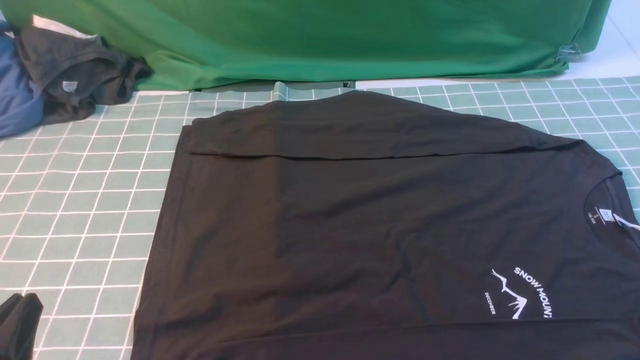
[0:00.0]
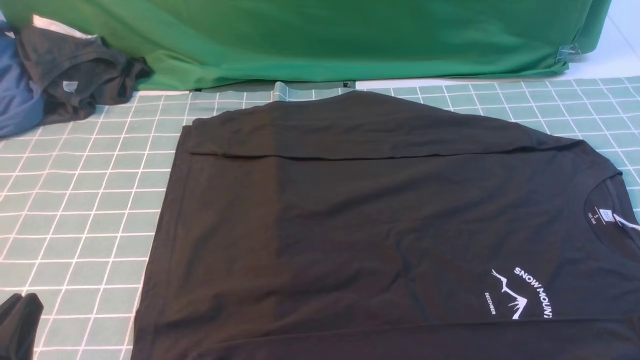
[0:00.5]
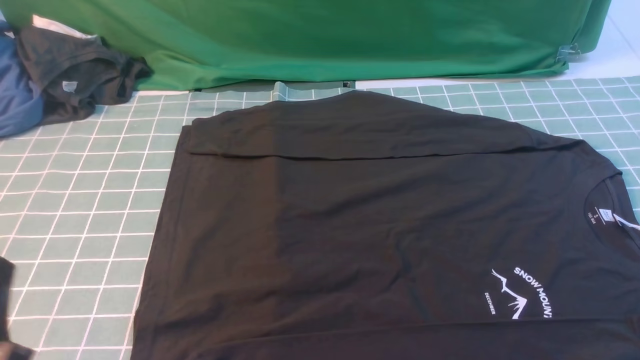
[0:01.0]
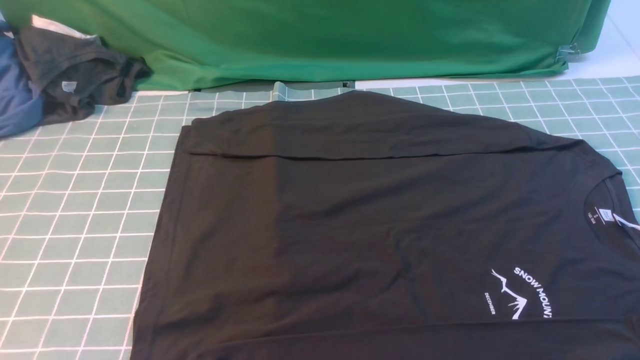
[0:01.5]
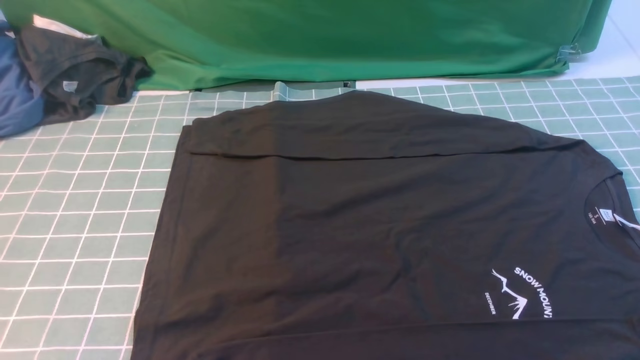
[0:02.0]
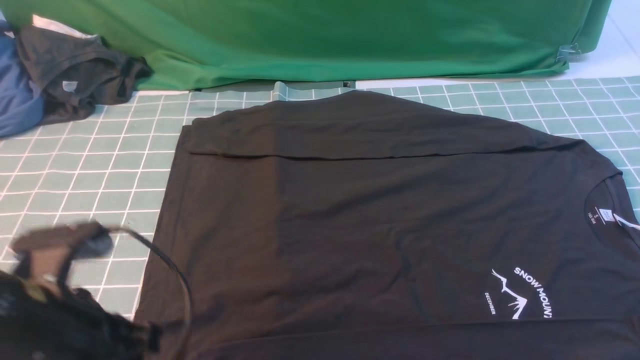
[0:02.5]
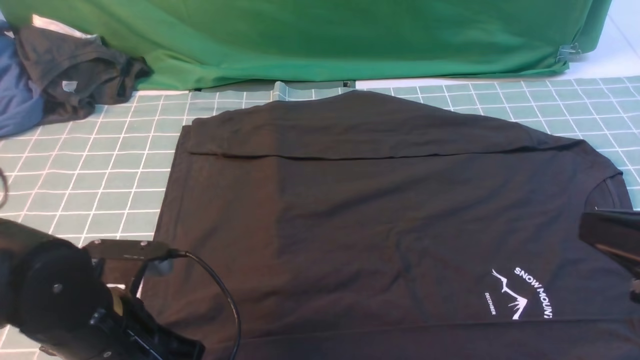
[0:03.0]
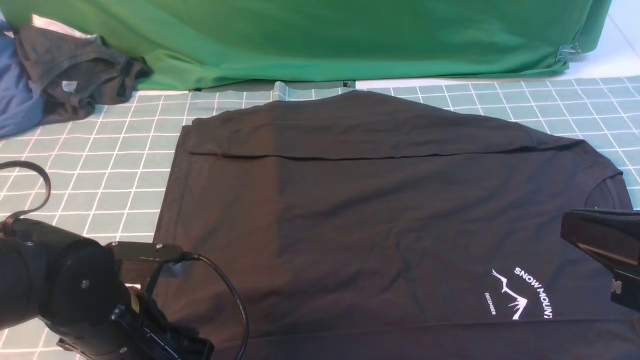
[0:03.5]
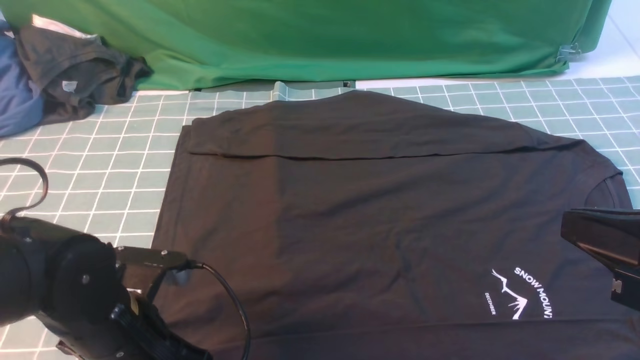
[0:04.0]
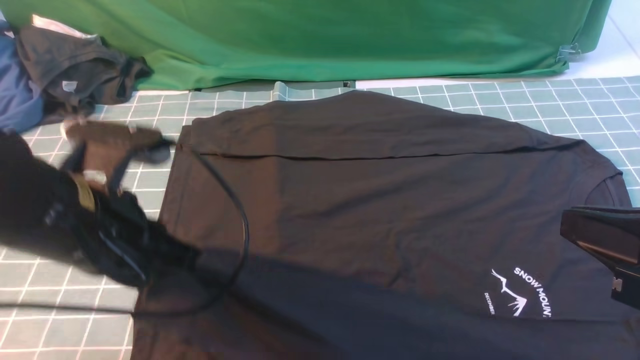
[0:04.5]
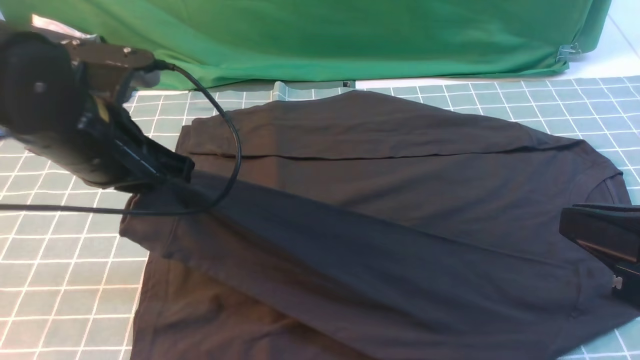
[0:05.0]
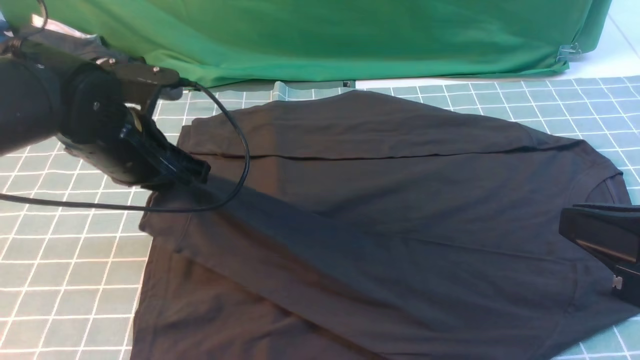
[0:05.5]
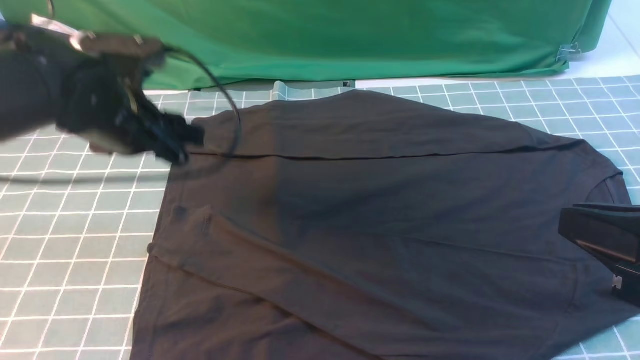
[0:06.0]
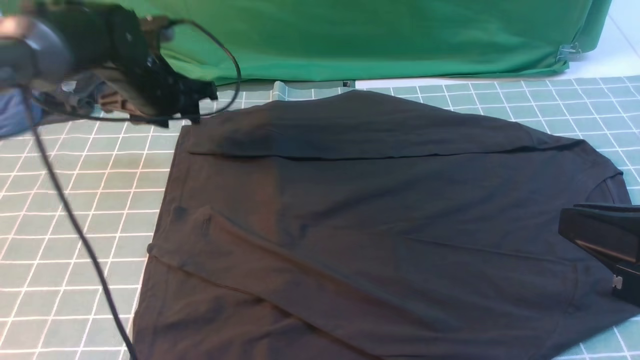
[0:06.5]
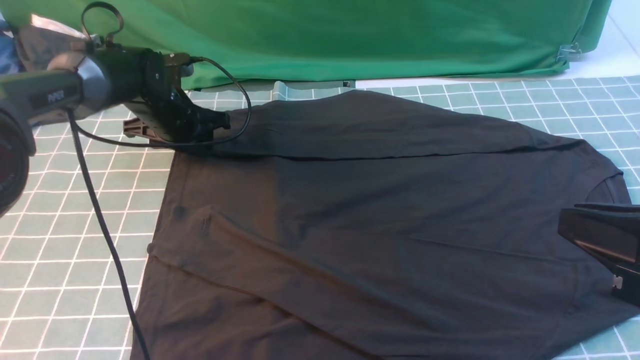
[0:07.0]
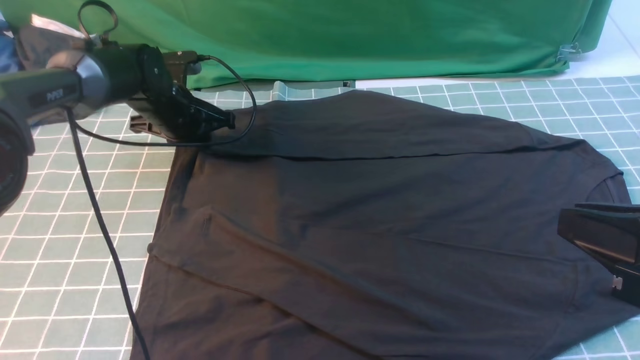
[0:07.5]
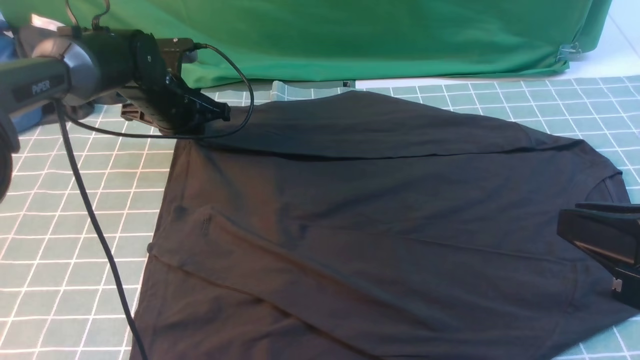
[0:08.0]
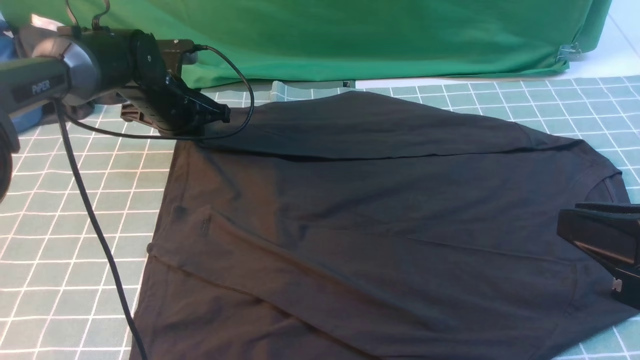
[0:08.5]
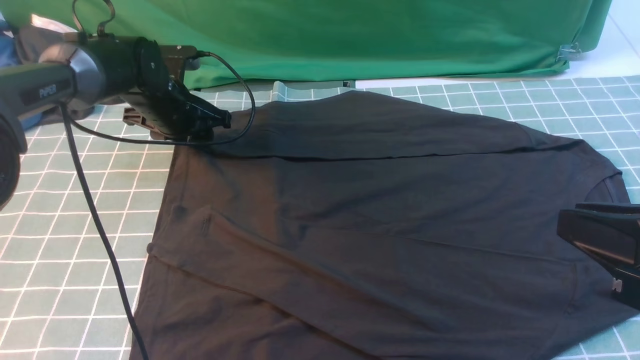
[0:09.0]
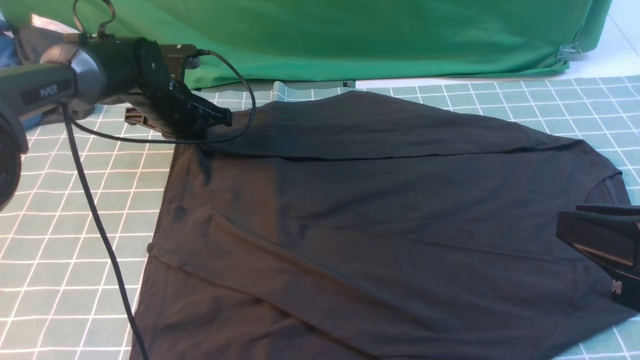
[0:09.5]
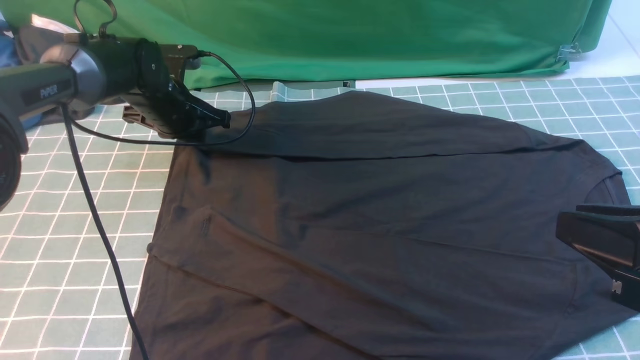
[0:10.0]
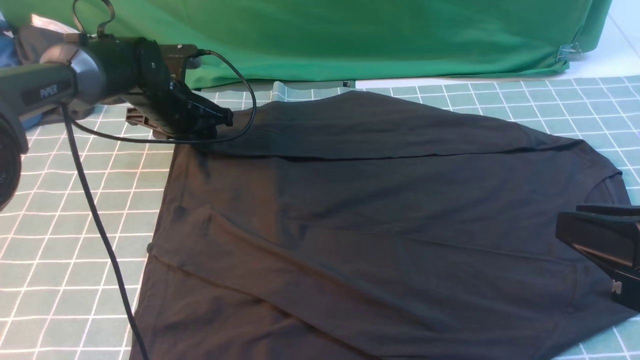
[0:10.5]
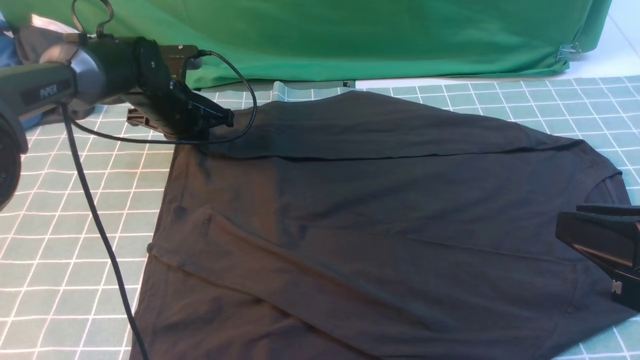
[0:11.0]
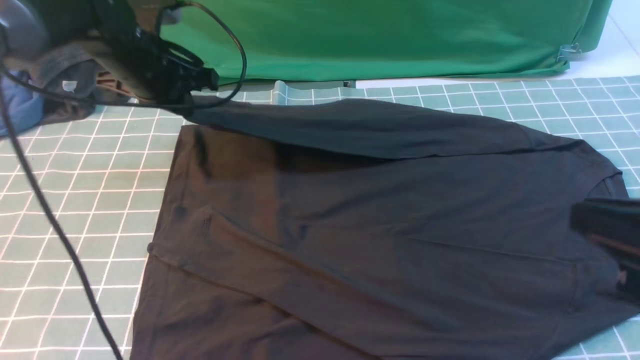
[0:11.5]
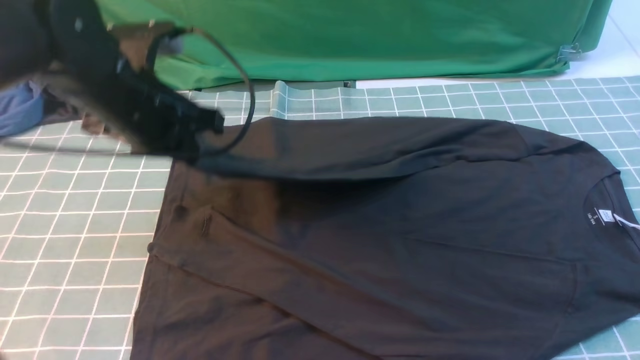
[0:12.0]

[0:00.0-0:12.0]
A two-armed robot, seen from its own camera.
Step, 0:00.0 to 0:04.0: use the left arm to clamp the cuff closest to it.
Step, 0:04.5 to 0:05.5: use the left arm to drag and place the cuff at the centered position on the left edge of the fabric.
Step, 0:06.0 to 0:11.0: use the left arm to clamp the cuff farthest from it.
0:00.0 to 0:02.0: The left gripper shifts about 15 cm upward.
0:02.0 to 0:04.0: The right gripper is displaced to the left, upward and forward by roughly 15 cm, and closes up. Meanwhile the left gripper goes approximately 20 cm downward and forward, and opens, then closes again.
0:04.0 to 0:06.0: The left gripper is displaced forward and upward by roughly 20 cm, and opens its fingers.
0:06.0 to 0:08.0: The left gripper heads forward and downward, covering some 15 cm, and closes up.
0:08.0 to 0:10.0: The two grippers keep their place.
0:10.0 to 0:12.0: The left gripper is displaced backward and upward by about 20 cm, and opens, then closes again. The right gripper changes place by approximately 5 cm.

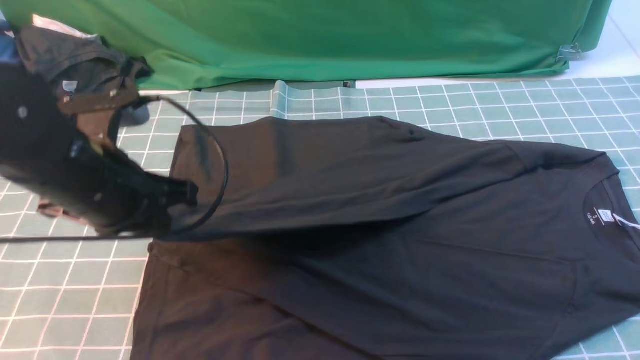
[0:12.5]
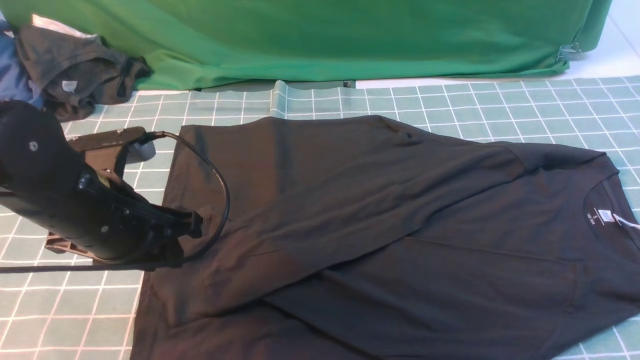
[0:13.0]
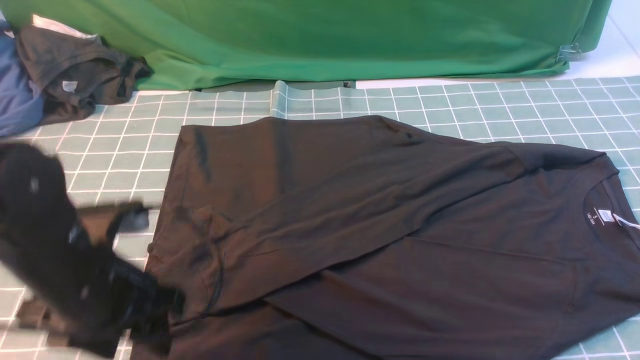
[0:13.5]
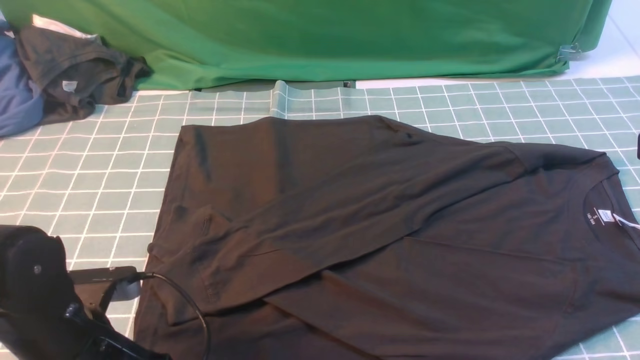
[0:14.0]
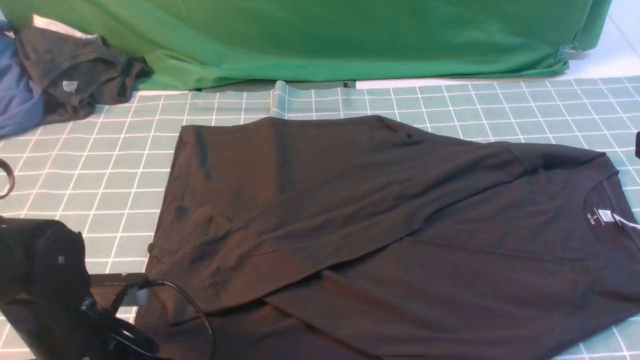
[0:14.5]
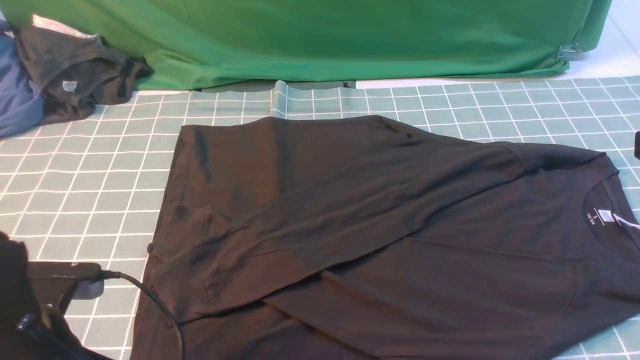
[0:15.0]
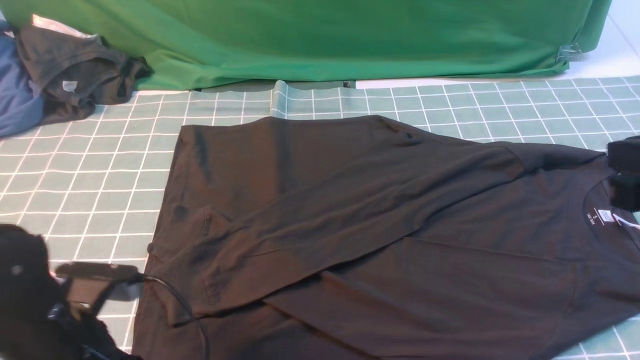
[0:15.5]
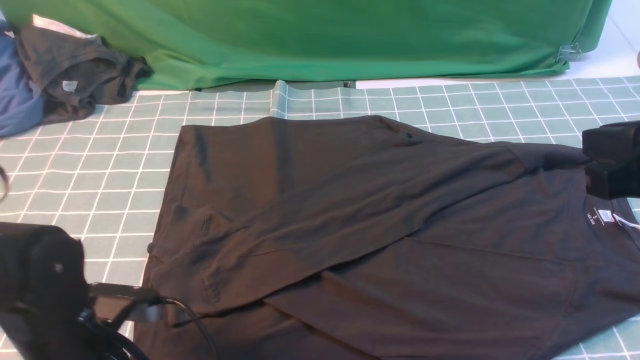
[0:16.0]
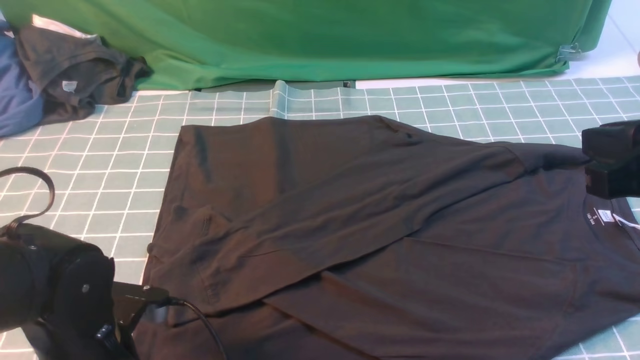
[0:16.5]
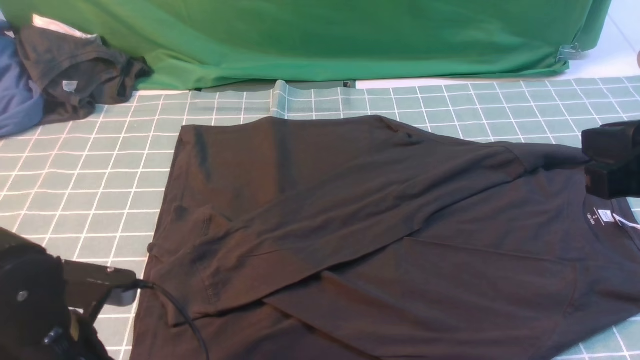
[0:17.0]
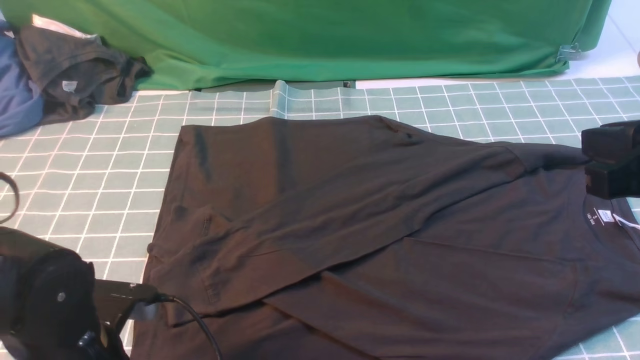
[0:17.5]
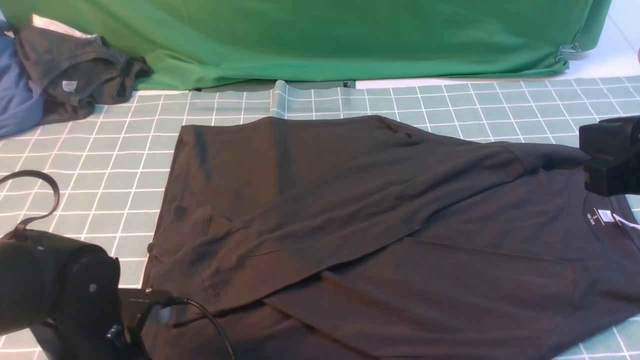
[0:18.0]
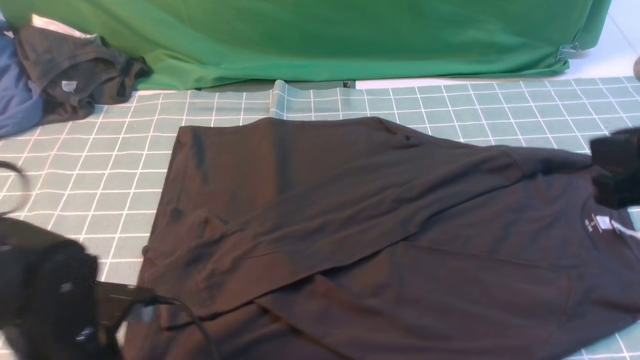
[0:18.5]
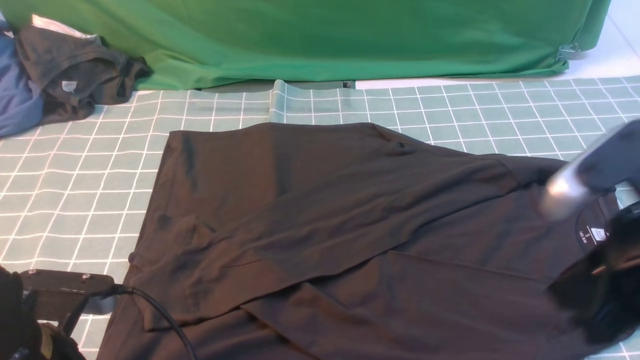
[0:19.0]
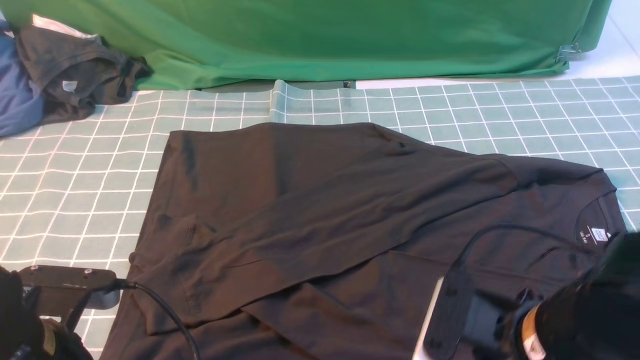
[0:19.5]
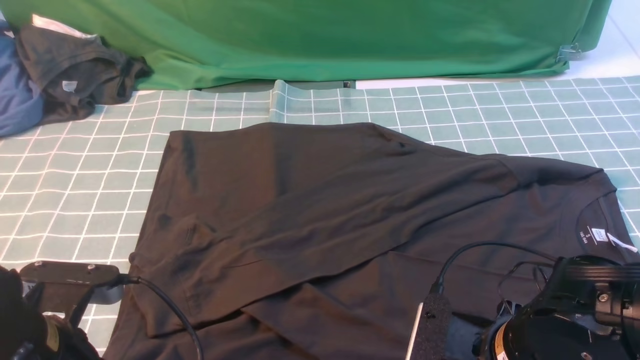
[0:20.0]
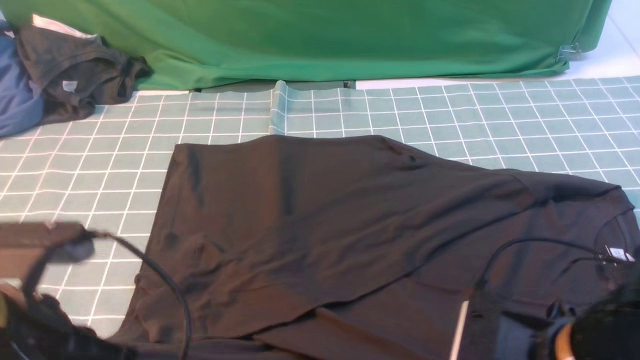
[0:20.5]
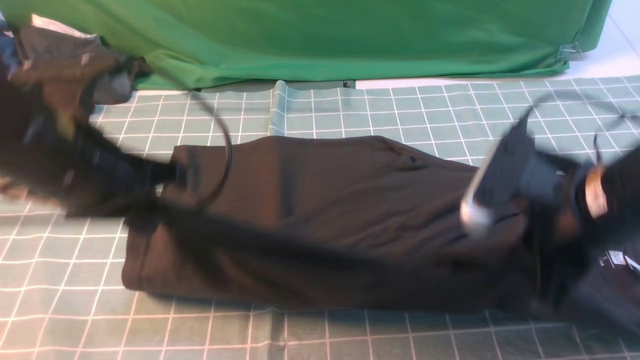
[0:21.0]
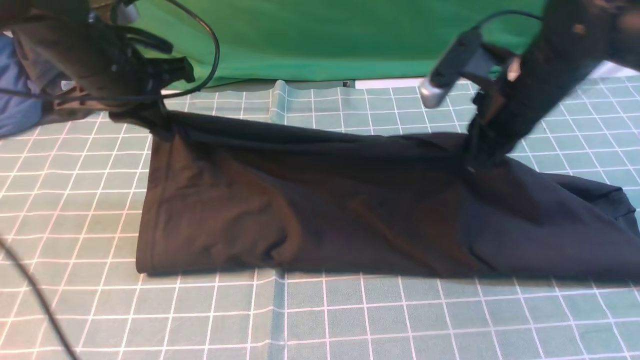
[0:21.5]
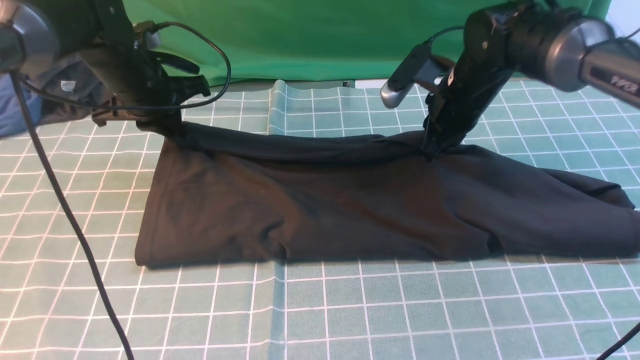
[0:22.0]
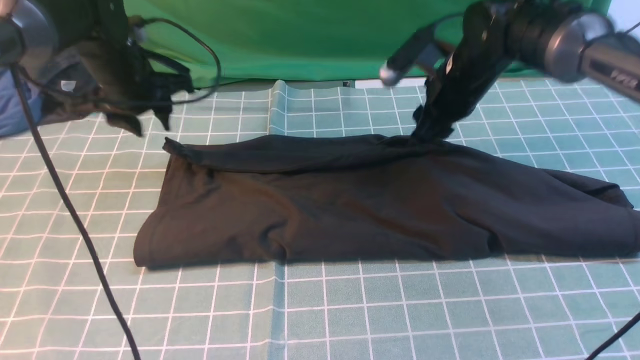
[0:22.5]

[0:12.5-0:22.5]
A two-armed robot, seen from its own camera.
Step, 0:13.5 to 0:20.5: use both arms simultaneously to clamp the lower edge of the clothing fabric.
0:12.5 to 0:14.5: The left gripper shifts roughly 15 cm downward and backward, and opens and closes again.
0:14.5 to 0:16.5: The left gripper opens, then closes again.
0:16.5 to 0:18.5: The left gripper opens, then closes again.
0:18.5 to 0:20.5: The left gripper is displaced upward by roughly 10 cm; the right gripper heads downward and to the left, covering roughly 15 cm, and opens, then closes once more.
0:20.5 to 0:22.5: Both grippers travel together forward, roughly 30 cm. The right gripper opens up, while the left gripper opens its fingers.
